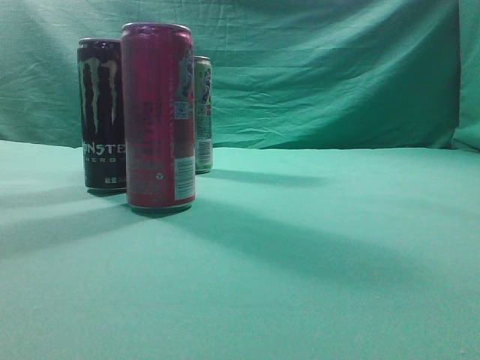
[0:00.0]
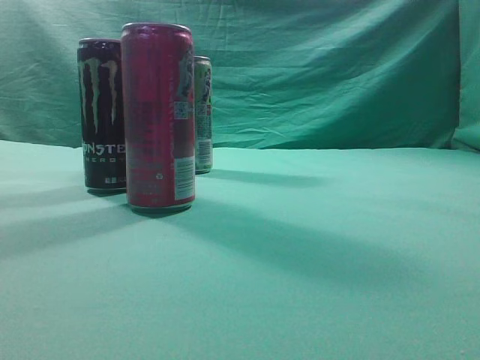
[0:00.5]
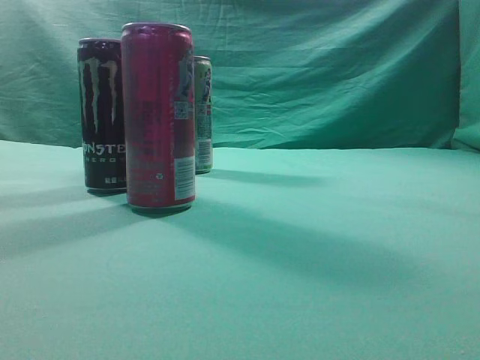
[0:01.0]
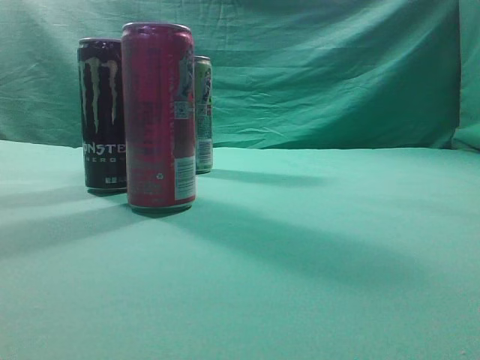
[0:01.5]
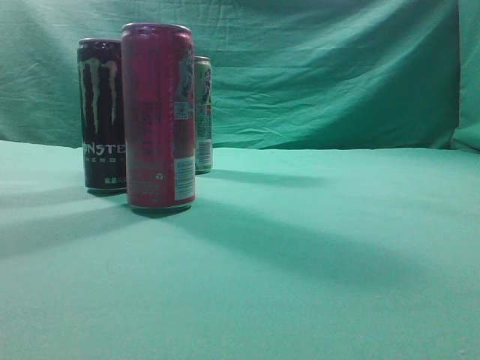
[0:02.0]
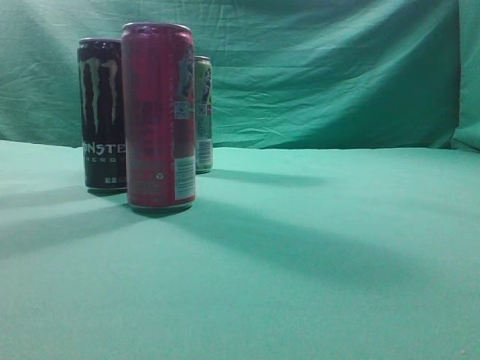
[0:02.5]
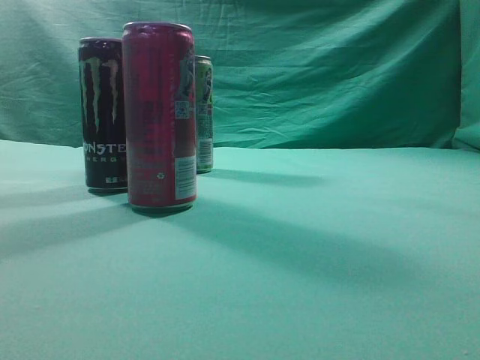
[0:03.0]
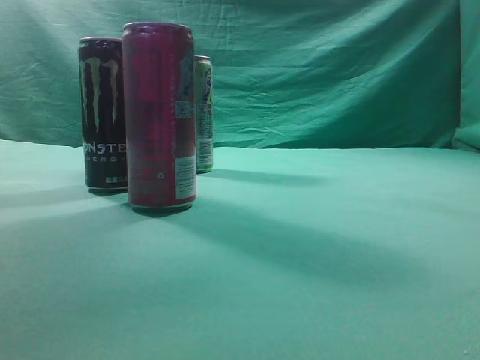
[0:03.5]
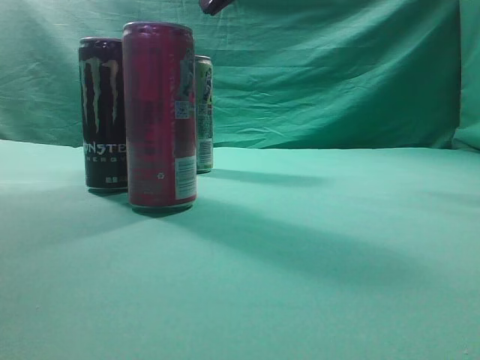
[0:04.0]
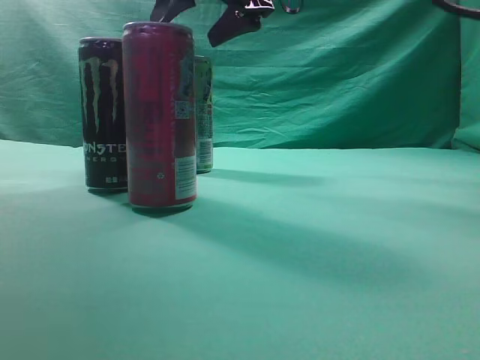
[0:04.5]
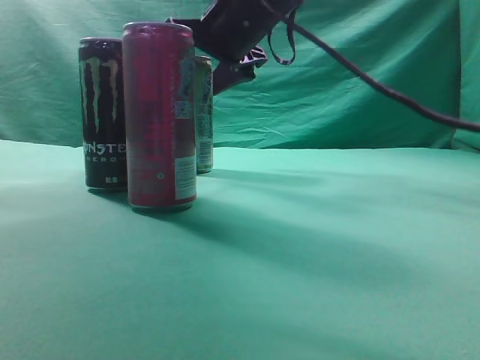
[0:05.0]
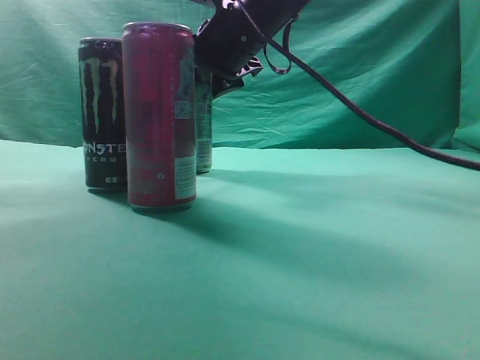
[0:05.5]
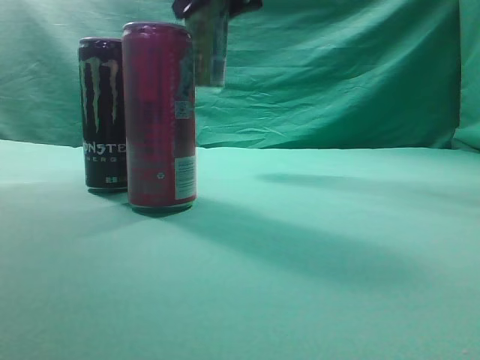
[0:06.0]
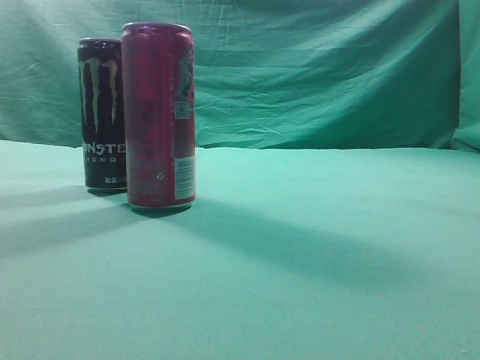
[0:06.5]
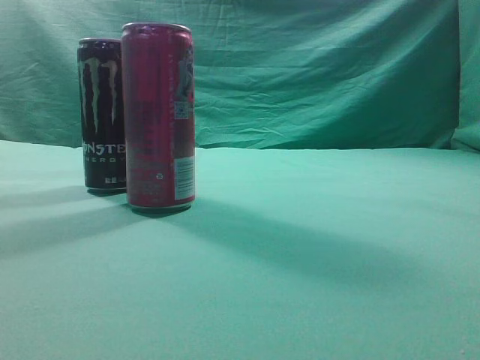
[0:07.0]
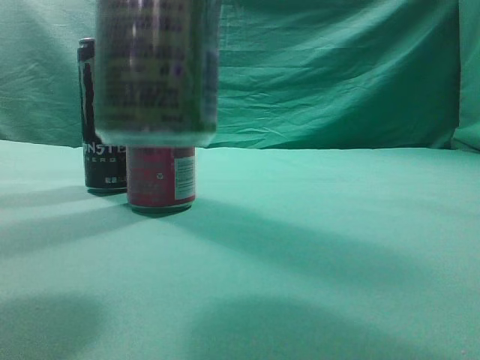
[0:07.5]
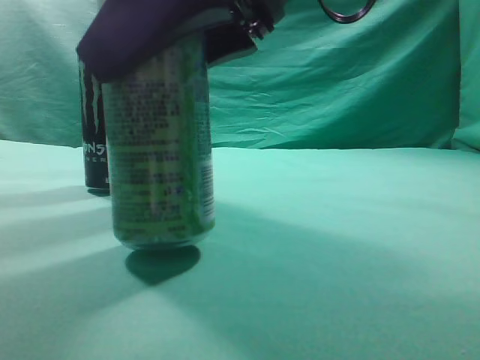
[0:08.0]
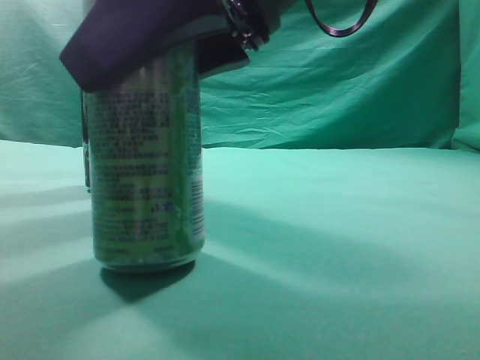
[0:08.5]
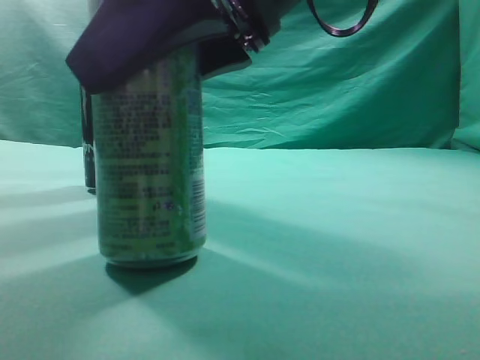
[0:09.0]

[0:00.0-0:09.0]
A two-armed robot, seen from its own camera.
Task of the whole recording: move one drink among three beverages.
Step, 0:00.0 to 0:06.0: Grasp the beverage bottle placed at the back of the desk.
0:02.0 to 0:04.5: The right gripper shifts some 50 cm forward and to the left, and opens up.
0:04.5 to 0:07.0: The right gripper moves up and down over about 25 cm, changing direction 2 times.
0:07.0 to 0:09.0: The right gripper moves downward and to the left, about 20 cm.

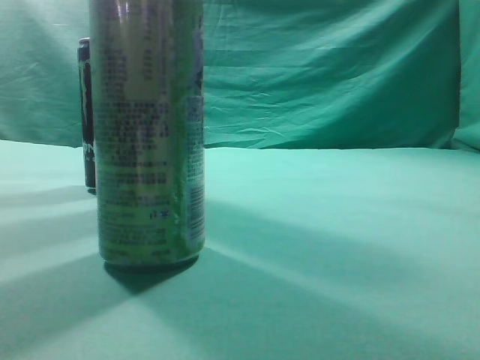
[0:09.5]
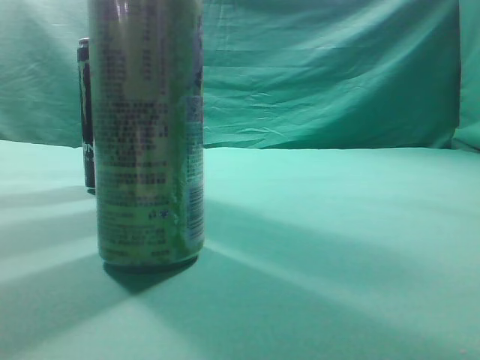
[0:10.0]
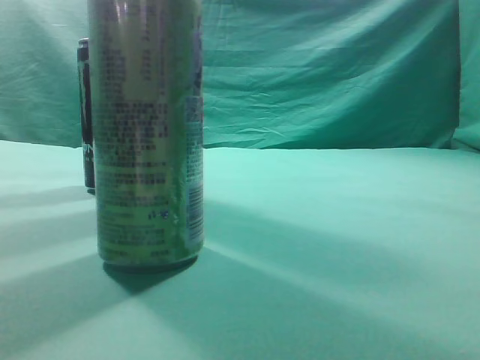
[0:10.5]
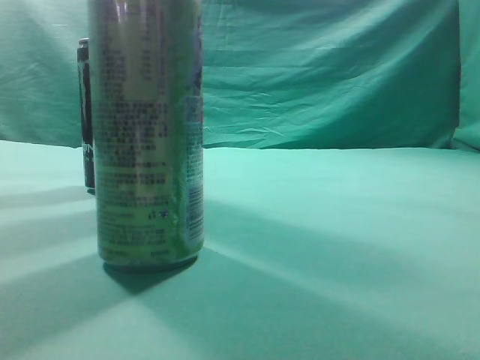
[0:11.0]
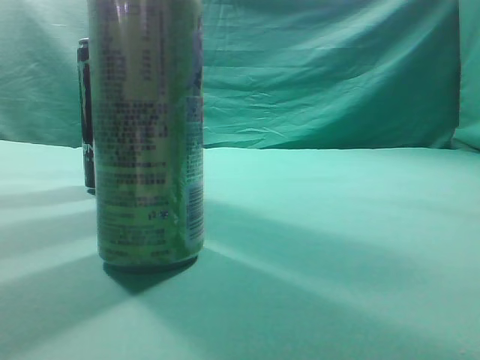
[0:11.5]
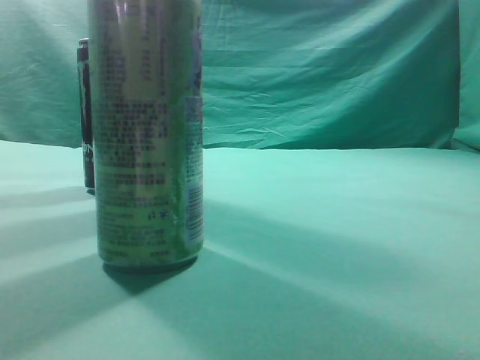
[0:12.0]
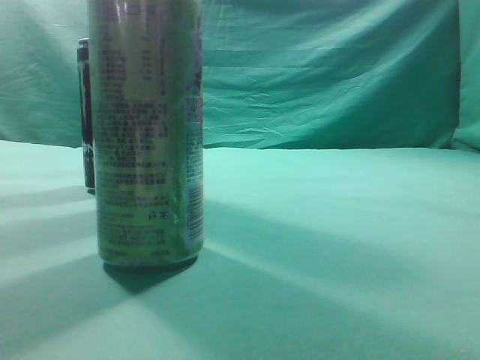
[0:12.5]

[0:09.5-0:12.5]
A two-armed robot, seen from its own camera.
Task of the whole recording: move one drink among three beverages.
0:09.5 to 0:11.0: The right gripper travels to the right, backward and upward by about 25 cm, and closes.
